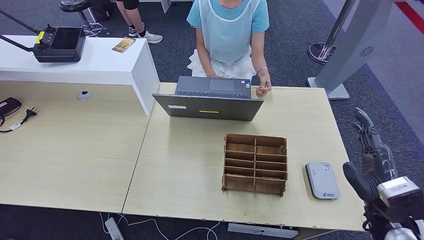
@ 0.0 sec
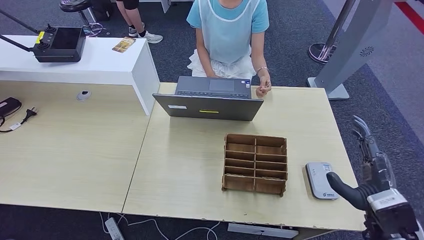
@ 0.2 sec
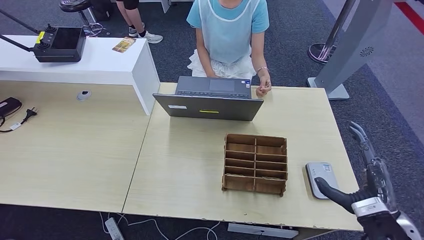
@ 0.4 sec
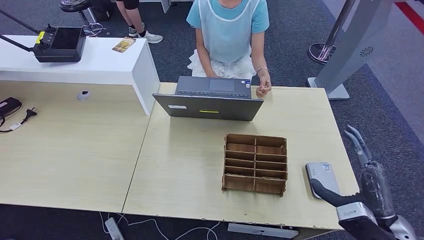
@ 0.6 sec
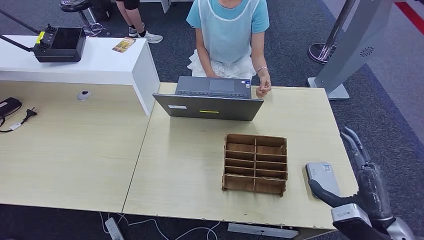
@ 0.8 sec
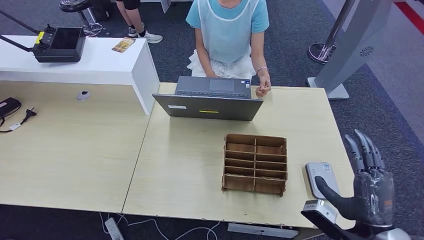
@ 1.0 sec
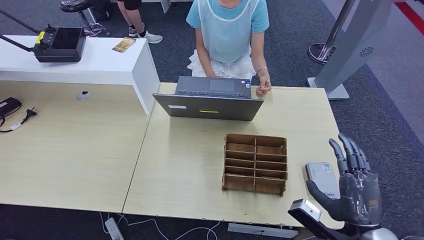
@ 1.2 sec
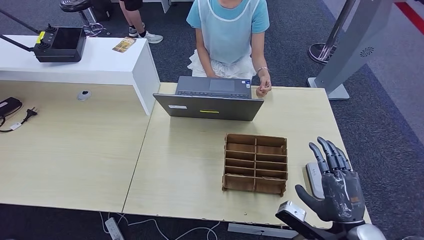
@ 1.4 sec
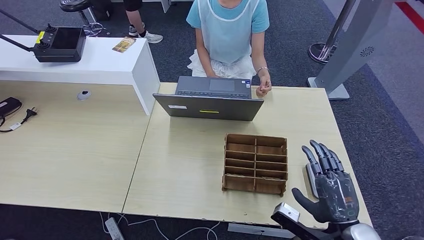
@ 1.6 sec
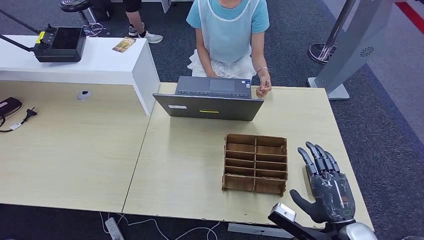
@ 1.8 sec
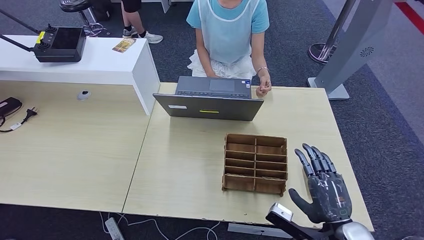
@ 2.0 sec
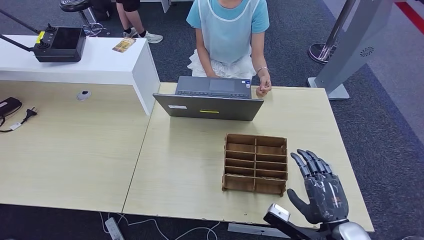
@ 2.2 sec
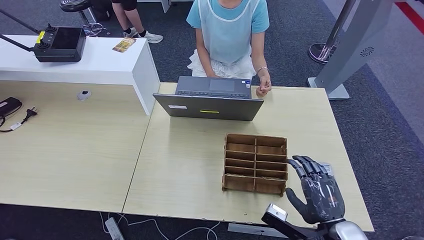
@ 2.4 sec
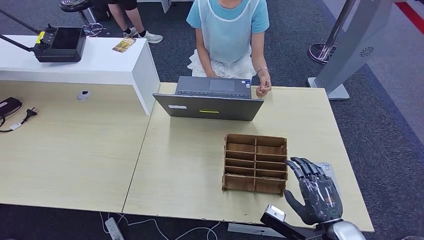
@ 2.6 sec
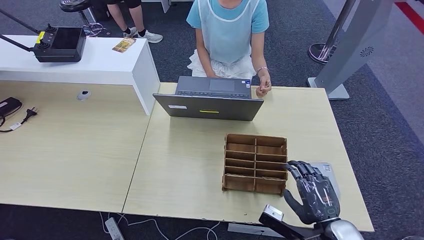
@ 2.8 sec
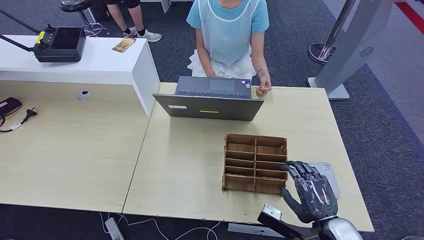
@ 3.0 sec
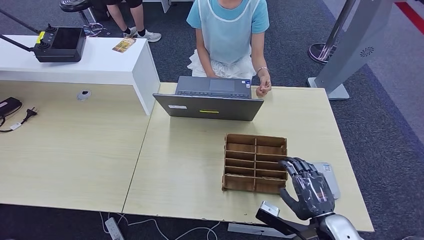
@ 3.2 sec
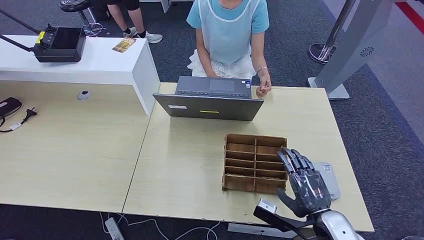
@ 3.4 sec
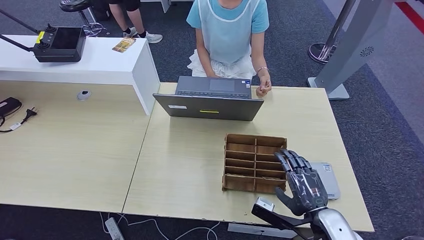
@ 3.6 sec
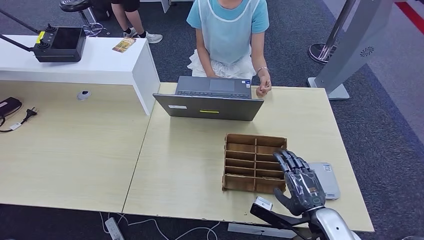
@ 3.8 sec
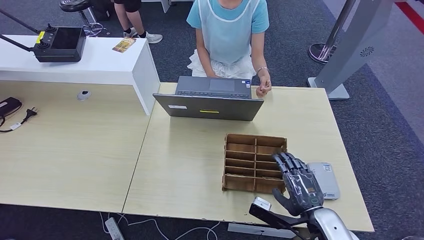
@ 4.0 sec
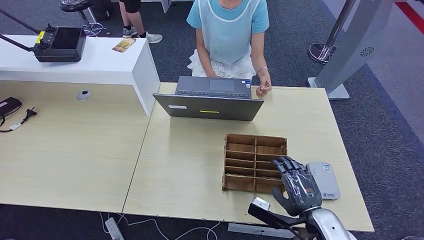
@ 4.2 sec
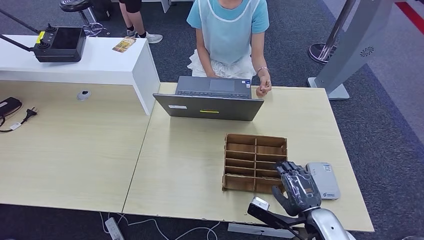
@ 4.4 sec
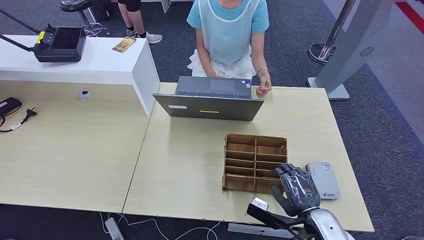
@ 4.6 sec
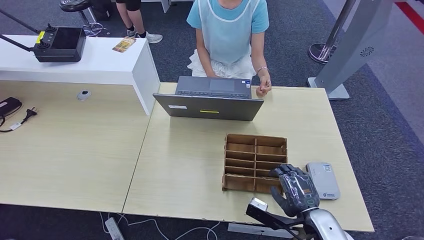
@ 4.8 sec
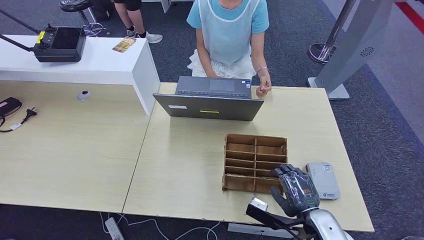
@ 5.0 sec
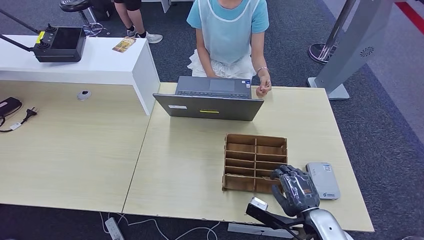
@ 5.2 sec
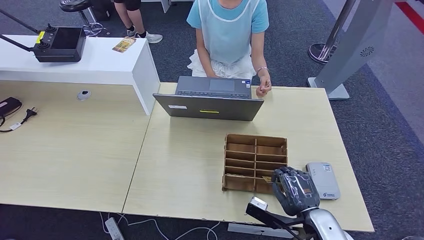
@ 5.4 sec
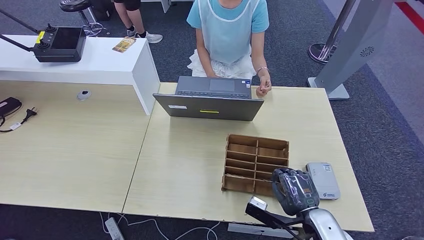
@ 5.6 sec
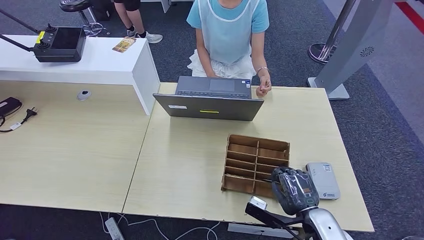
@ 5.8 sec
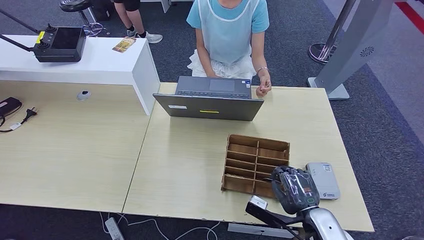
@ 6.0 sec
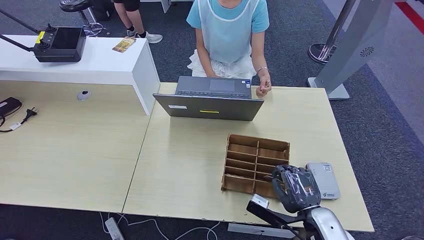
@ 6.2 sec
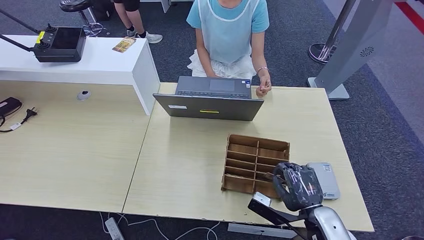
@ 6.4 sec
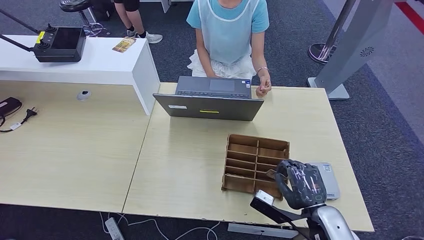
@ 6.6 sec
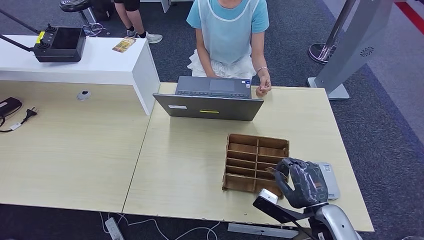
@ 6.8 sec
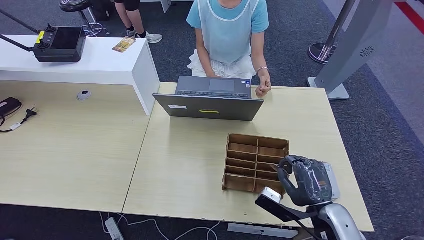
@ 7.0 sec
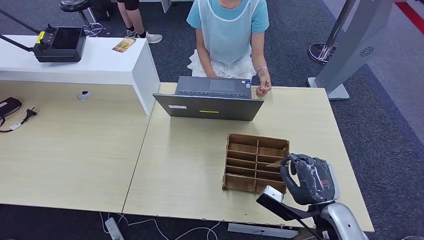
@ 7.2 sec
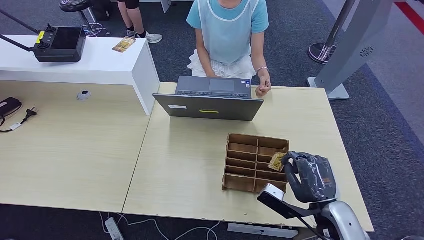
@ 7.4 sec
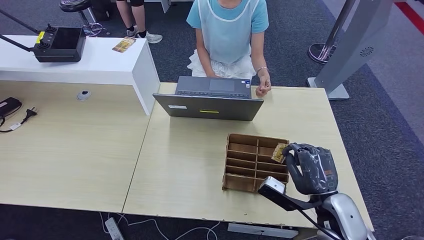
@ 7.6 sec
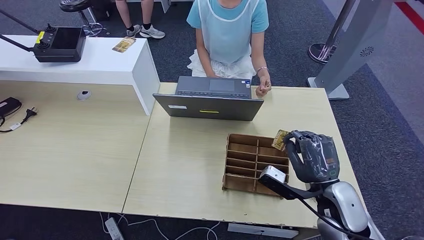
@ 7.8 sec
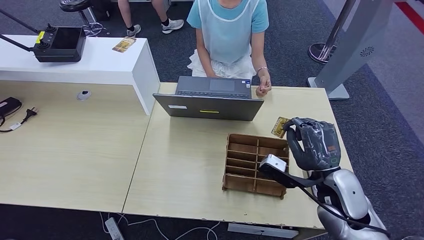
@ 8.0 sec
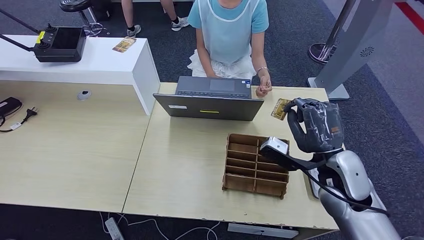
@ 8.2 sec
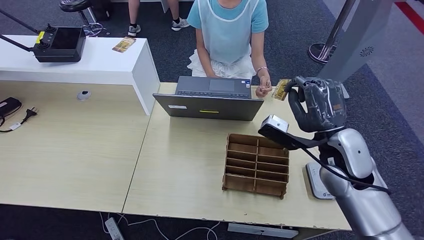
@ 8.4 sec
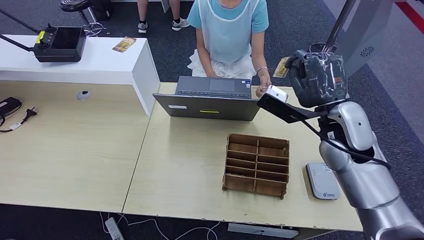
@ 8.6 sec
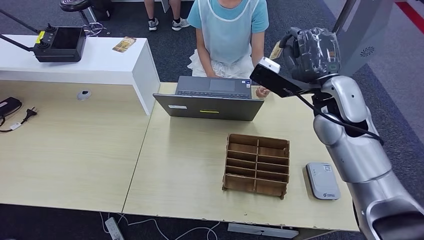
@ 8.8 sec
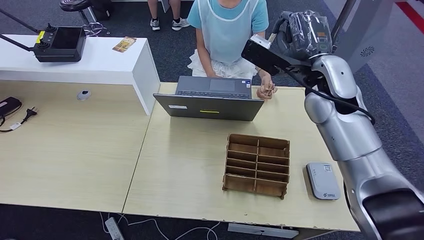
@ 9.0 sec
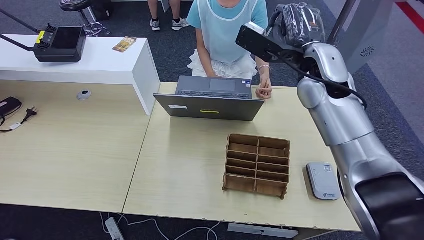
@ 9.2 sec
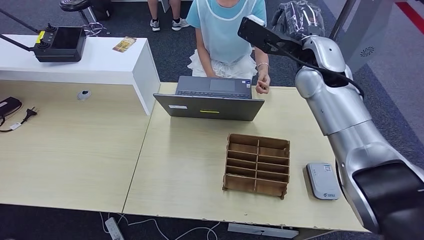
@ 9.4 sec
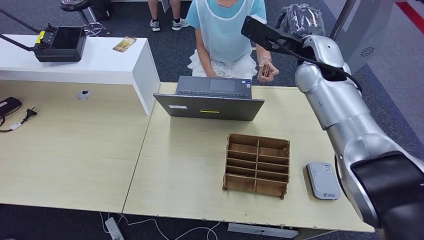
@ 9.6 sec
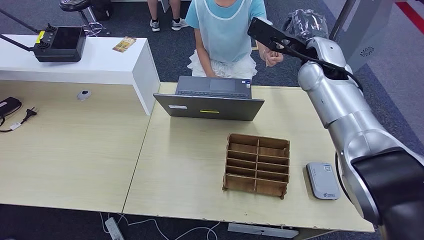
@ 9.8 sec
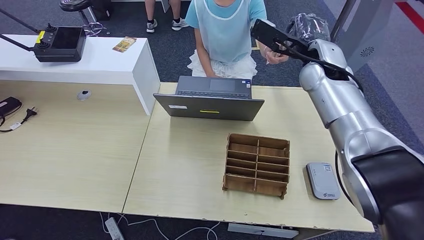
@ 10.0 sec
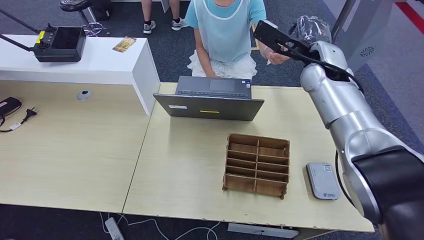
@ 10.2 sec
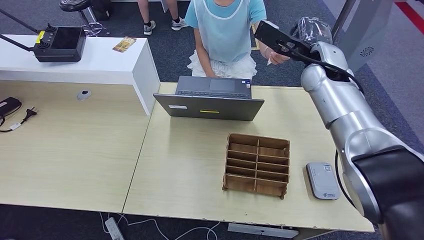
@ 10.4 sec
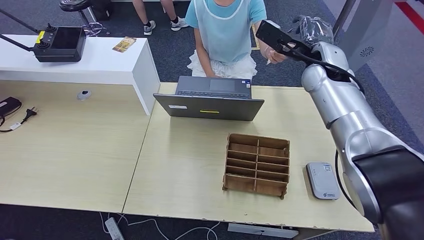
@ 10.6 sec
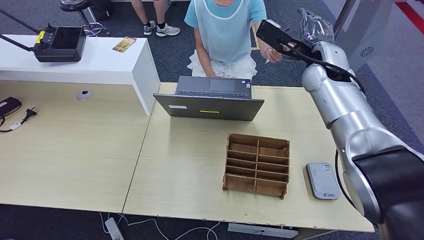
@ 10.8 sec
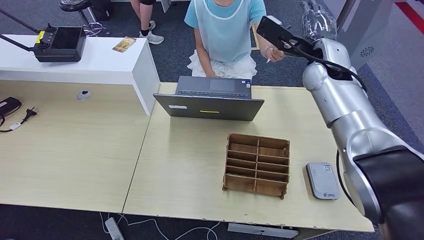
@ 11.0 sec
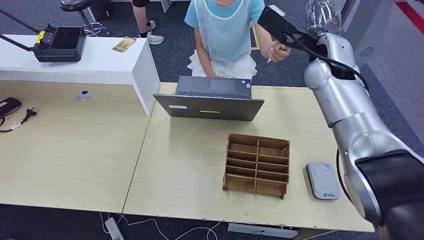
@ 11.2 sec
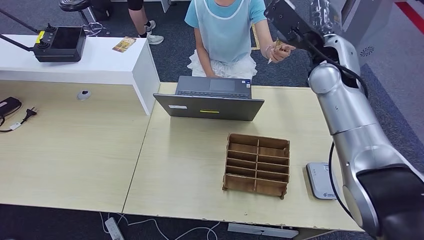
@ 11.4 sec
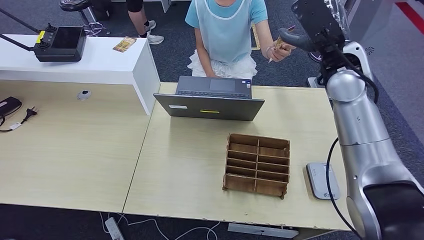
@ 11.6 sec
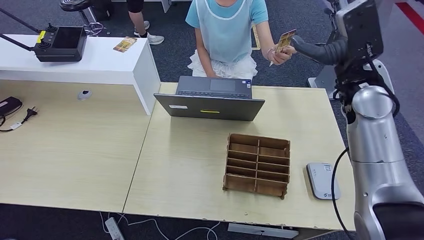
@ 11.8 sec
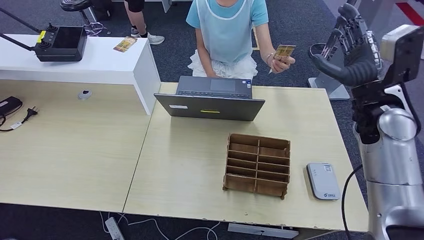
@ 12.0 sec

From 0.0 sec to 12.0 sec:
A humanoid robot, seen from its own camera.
Step, from 0.0 sec to 7.6 sec: Pick up the room key from the key card box.
Step, from 7.8 sec to 12.0 sec: Hand the room key to the person.
From 0.0 sec to 1.6 sec: The right hand shifts about 5 cm to the left.
From 1.6 sec to 3.0 sec: The hands stay close to where they were, moving slightly.
From 3.0 sec to 4.4 sec: The hands stay close to where they were, moving slightly.
From 4.4 sec to 6.0 sec: Neither hand changes place.
From 6.0 sec to 7.6 sec: The right hand shifts roughly 5 cm upward.
From 7.6 sec to 9.0 sec: The right hand goes some 30 cm upward and forward.
From 9.0 sec to 10.4 sec: The right hand travels forward by approximately 10 cm.
